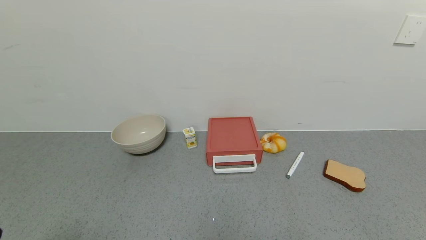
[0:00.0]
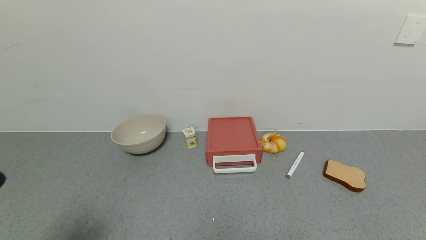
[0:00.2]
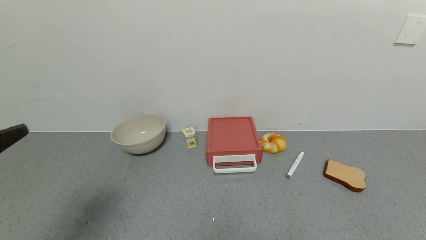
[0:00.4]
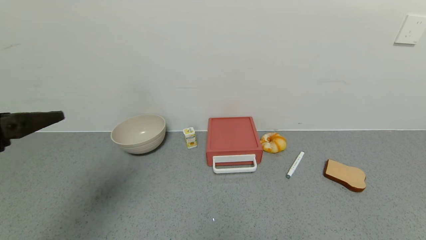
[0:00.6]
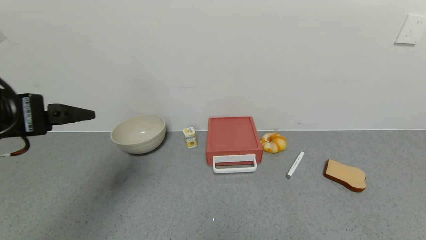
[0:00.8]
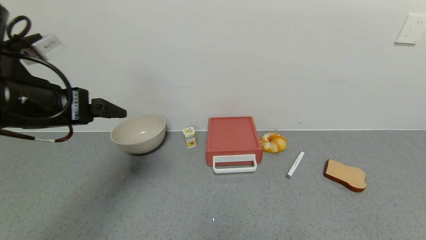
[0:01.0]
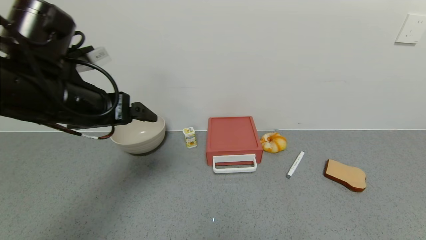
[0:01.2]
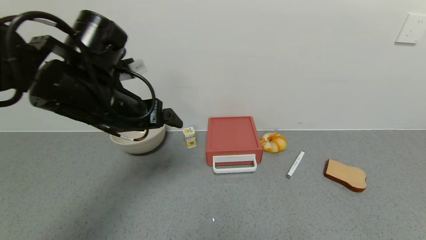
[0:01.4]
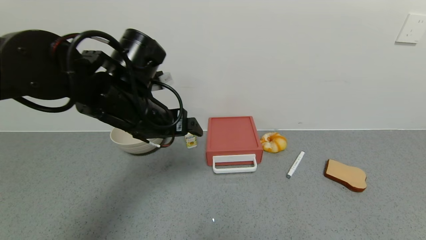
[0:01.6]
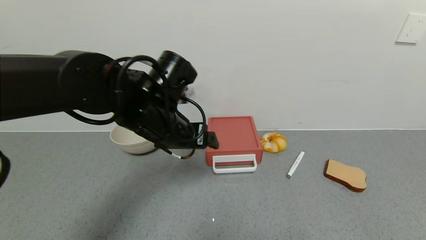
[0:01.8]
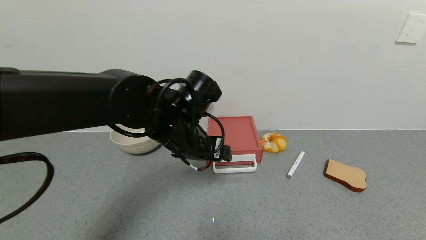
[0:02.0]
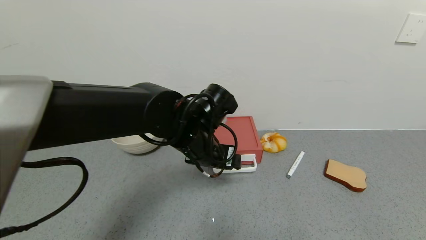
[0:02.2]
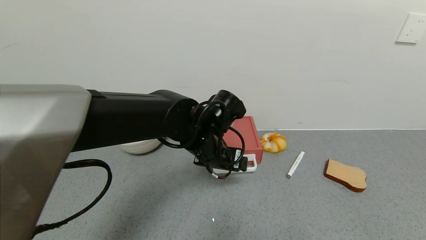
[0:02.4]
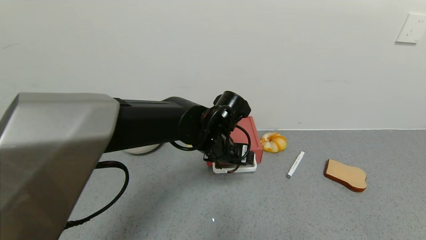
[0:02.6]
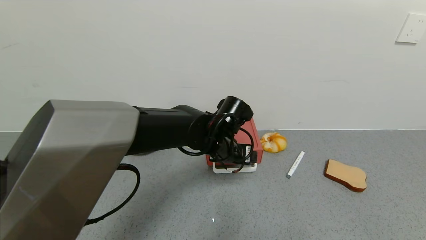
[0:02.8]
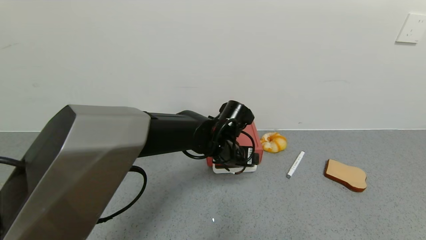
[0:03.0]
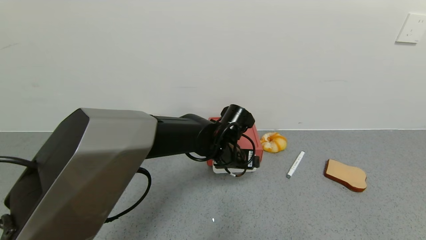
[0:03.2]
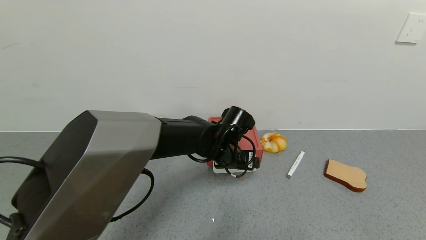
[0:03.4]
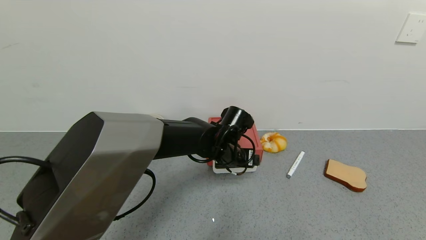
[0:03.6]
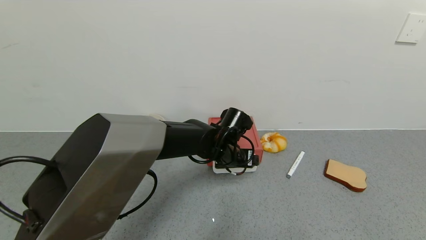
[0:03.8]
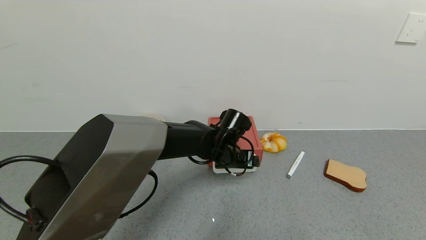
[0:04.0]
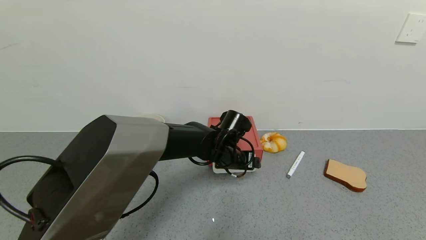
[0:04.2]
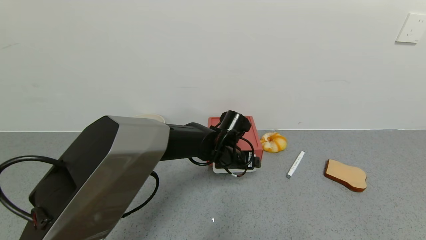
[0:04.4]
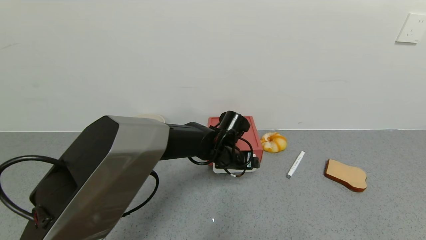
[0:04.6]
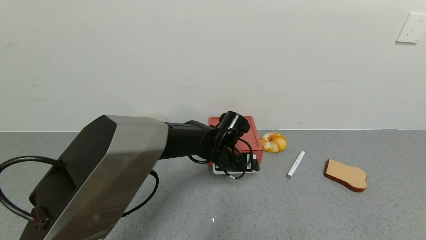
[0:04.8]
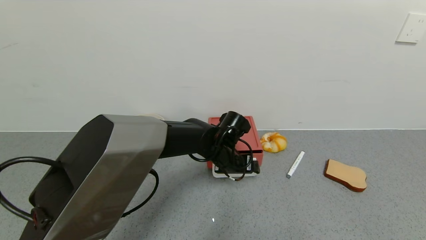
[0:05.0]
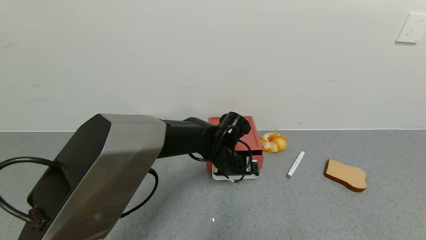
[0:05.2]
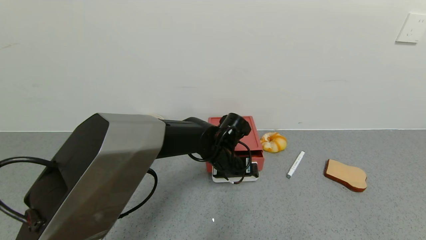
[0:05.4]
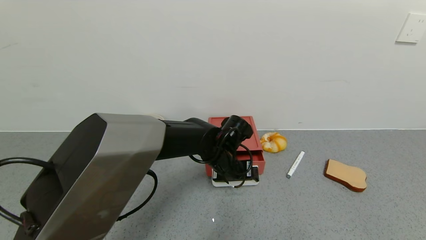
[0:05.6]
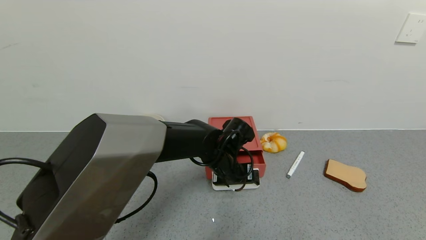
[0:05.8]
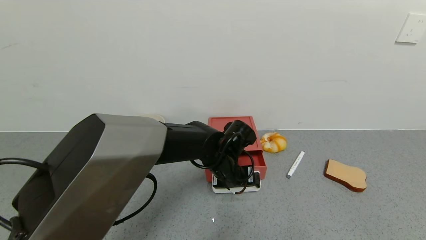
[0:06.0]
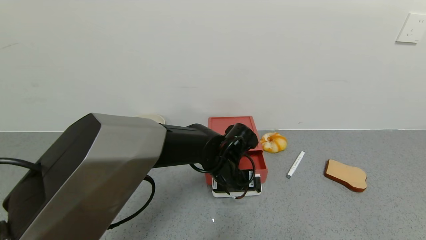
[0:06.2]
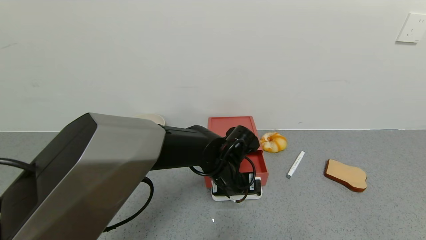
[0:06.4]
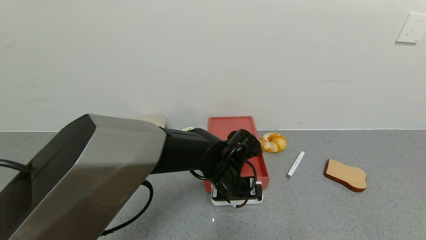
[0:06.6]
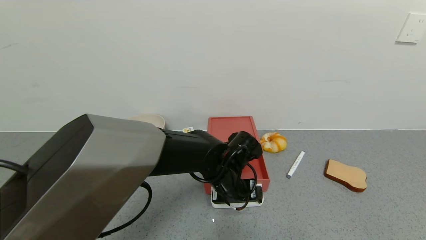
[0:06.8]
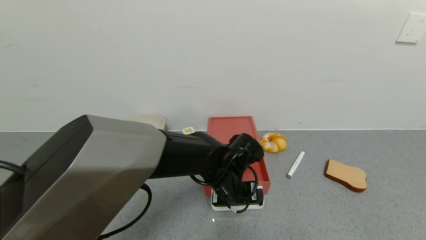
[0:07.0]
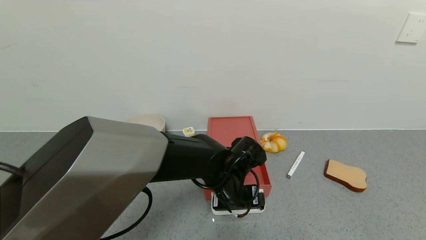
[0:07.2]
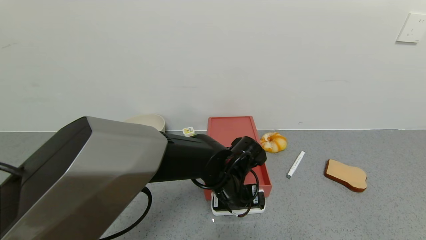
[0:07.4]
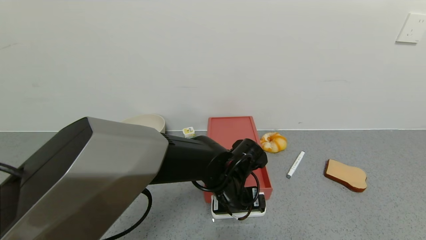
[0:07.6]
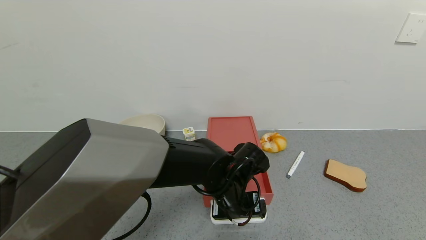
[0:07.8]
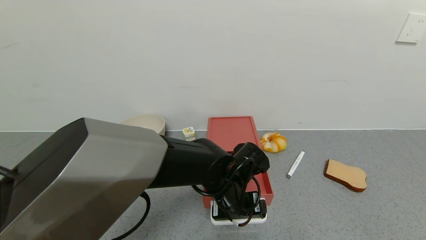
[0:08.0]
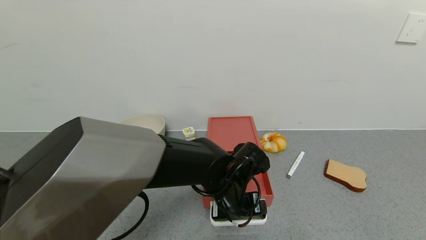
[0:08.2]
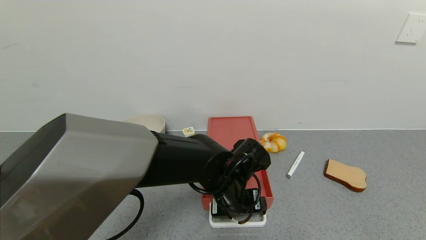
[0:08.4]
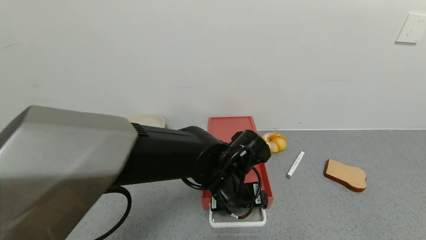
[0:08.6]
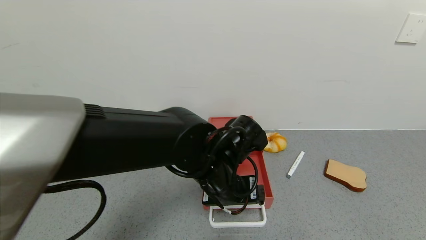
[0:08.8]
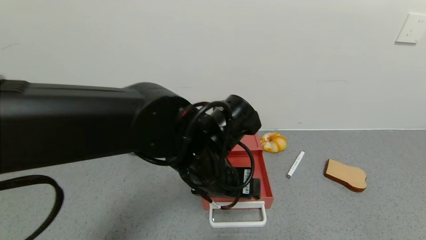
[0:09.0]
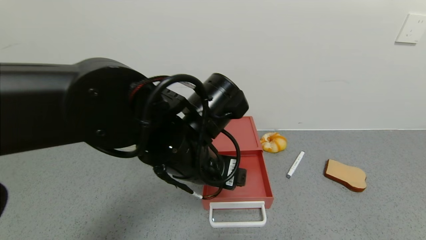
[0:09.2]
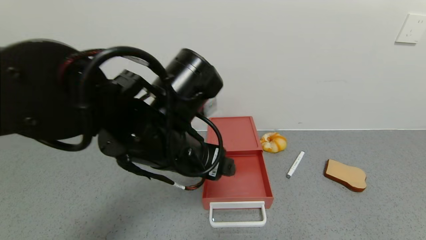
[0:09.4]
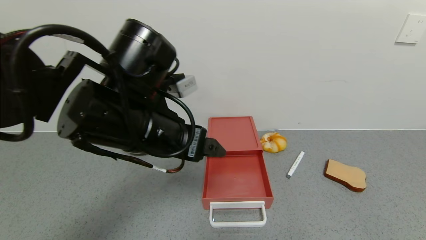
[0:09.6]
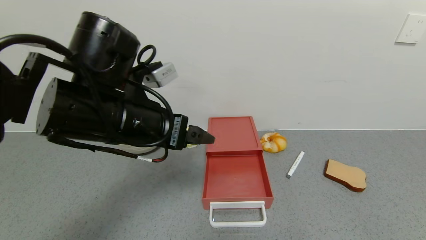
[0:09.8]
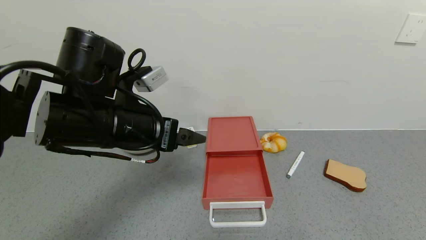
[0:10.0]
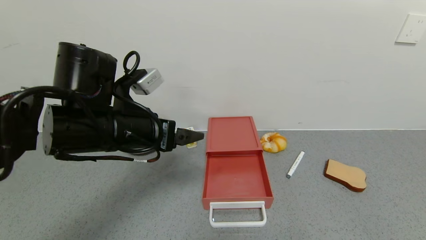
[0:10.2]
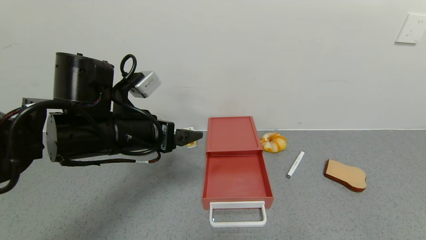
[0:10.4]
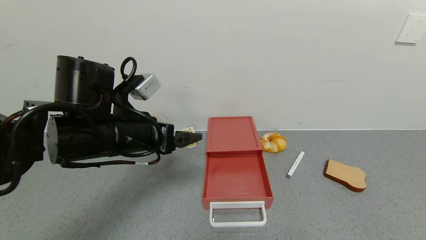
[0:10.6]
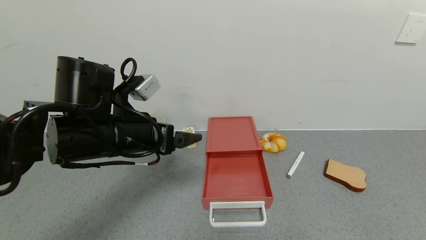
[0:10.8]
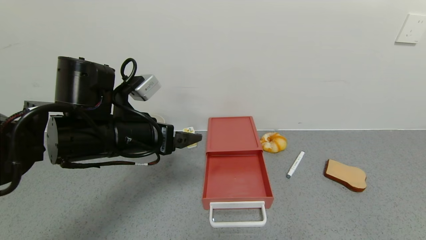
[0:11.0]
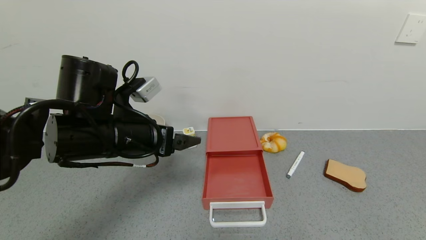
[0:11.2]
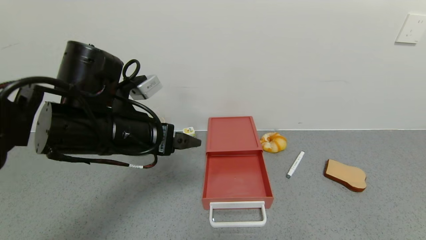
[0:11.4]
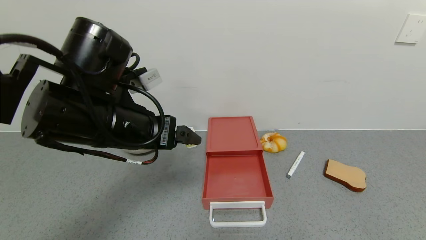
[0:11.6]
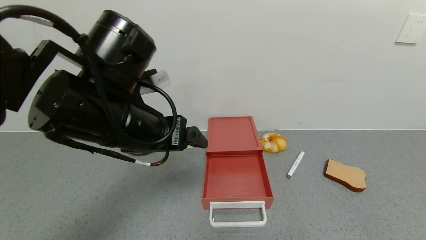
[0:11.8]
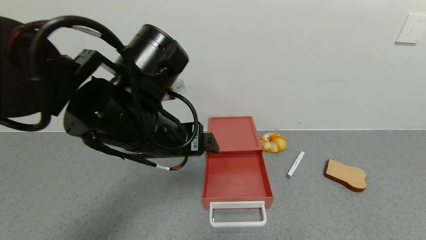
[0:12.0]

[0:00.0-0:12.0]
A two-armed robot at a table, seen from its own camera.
Task of the whole recording: use the gripper to open the drawer and close the red drawer.
Step, 0:00.0 to 0:08.8: Open the red drawer with the left gripper.
0:00.0 to 0:01.6: The left gripper goes some 35 cm forward and to the right.
0:01.6 to 0:03.0: The left gripper shifts approximately 20 cm to the right, downward and forward.
0:03.0 to 0:06.0: The grippers stay close to where they were, moving slightly.
0:06.0 to 0:07.6: The left gripper moves backward, some 5 cm.
0:07.6 to 0:09.0: The left gripper travels upward by about 10 cm.
0:09.0 to 0:10.4: The left gripper is displaced to the left by roughly 15 cm.
0:10.4 to 0:12.0: The left gripper shifts approximately 5 cm to the right.

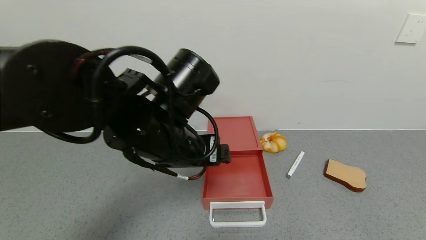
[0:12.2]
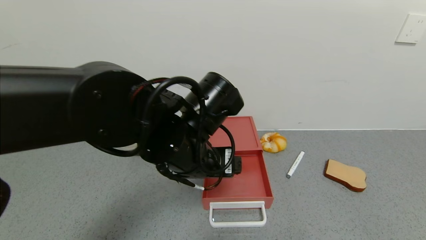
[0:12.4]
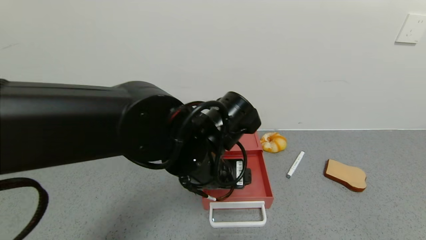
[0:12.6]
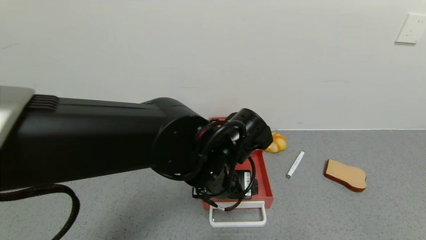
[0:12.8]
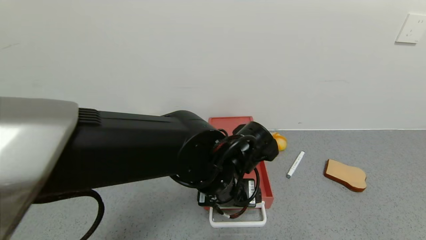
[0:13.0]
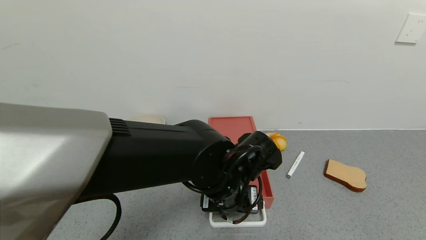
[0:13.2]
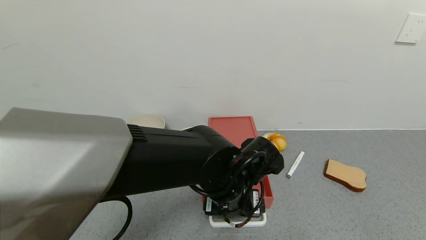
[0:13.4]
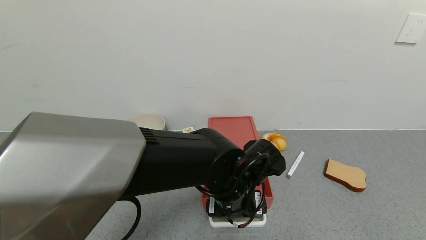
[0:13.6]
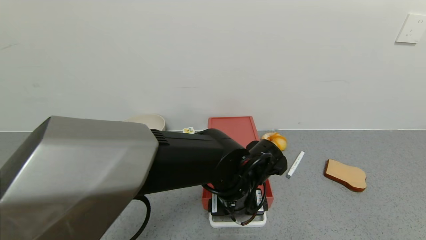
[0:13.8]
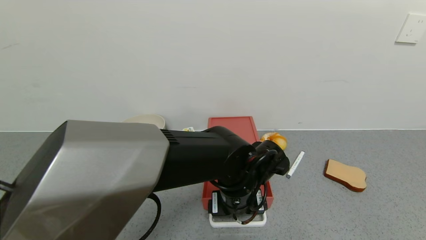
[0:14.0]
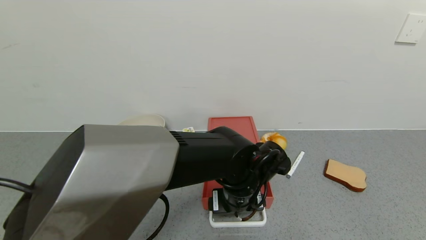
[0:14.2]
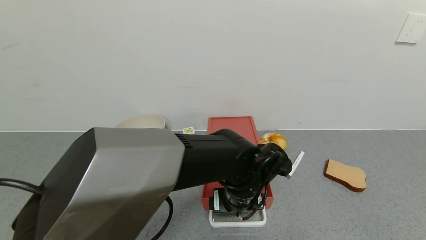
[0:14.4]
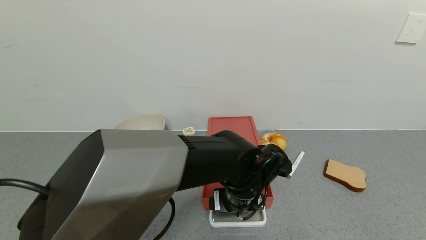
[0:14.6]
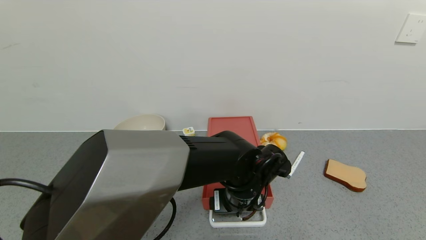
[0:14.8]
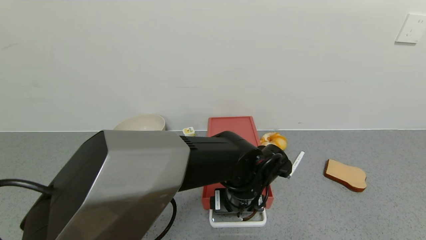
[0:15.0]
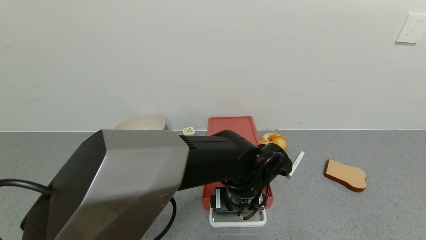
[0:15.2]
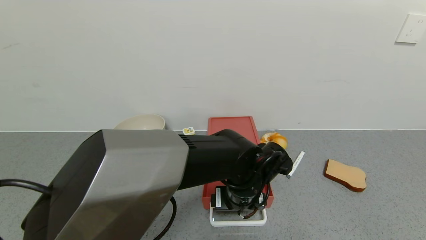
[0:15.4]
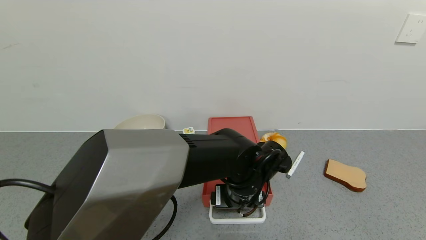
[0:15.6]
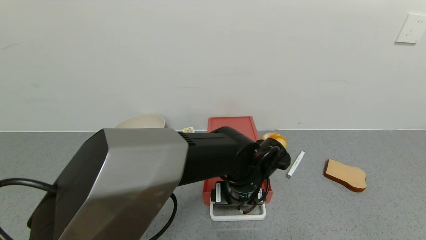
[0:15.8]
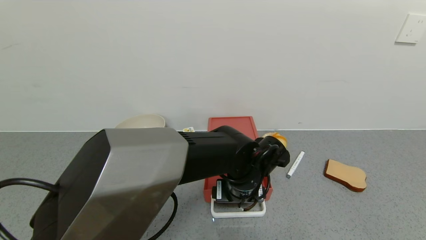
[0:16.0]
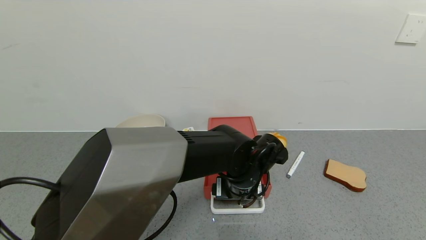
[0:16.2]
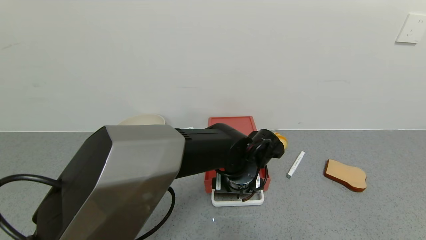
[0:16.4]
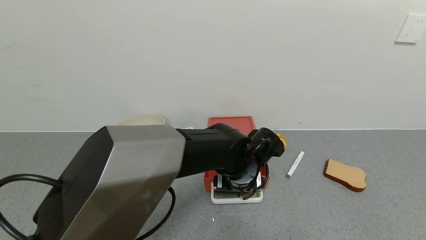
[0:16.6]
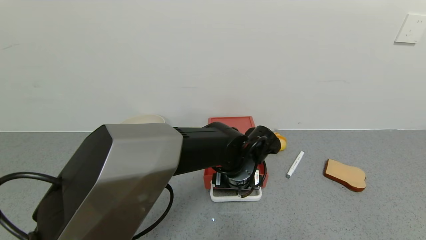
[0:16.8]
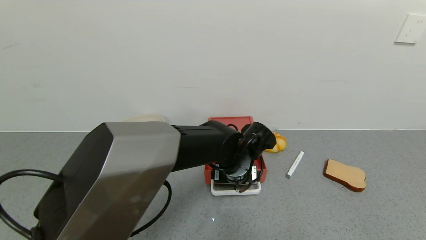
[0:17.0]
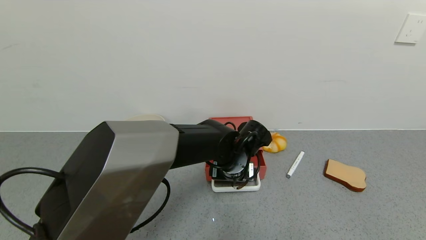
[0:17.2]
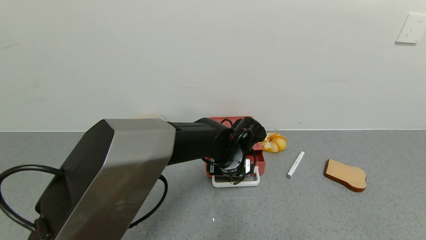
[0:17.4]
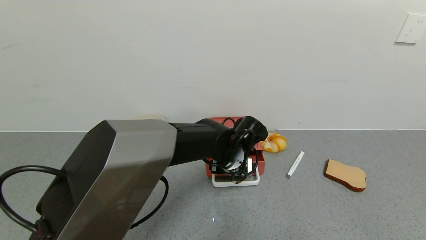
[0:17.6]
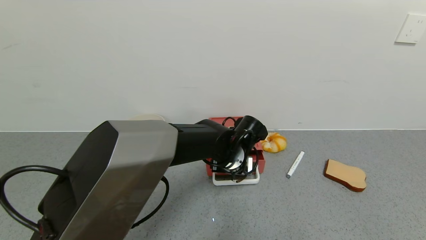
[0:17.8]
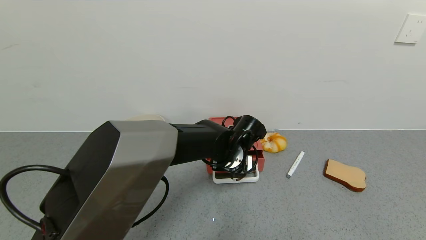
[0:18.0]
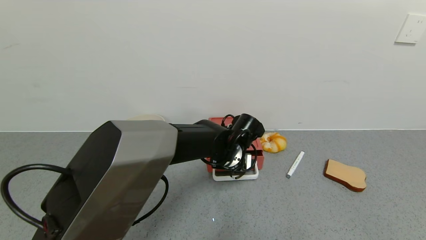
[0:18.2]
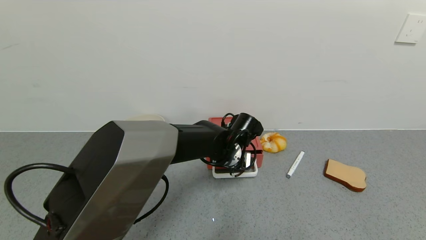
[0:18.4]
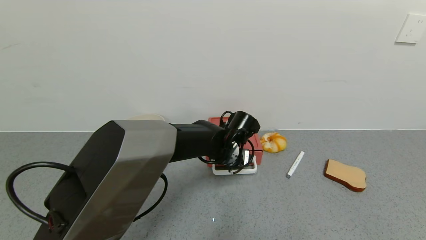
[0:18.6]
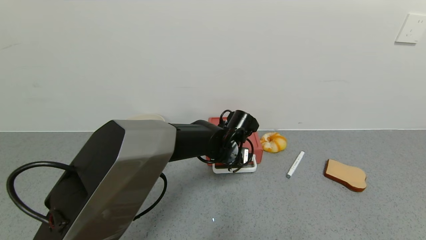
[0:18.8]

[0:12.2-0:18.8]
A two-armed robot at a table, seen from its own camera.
Task of the whole recording: use the gripper to open the drawer and close the red drawer.
0:12.2 to 0:13.8: The left gripper travels downward and to the right by about 15 cm.
0:13.8 to 0:15.4: The grippers stay close to where they were, moving slightly.
0:15.4 to 0:17.2: The left gripper moves forward, about 5 cm.
0:17.2 to 0:18.8: The grippers stay close to where they were, moving slightly.
